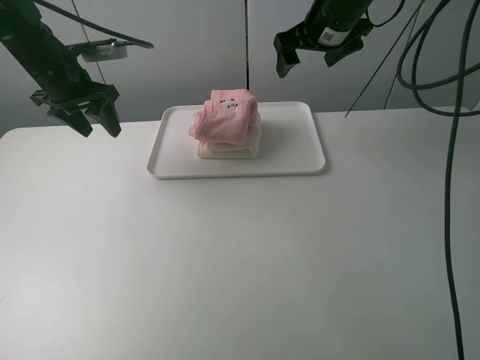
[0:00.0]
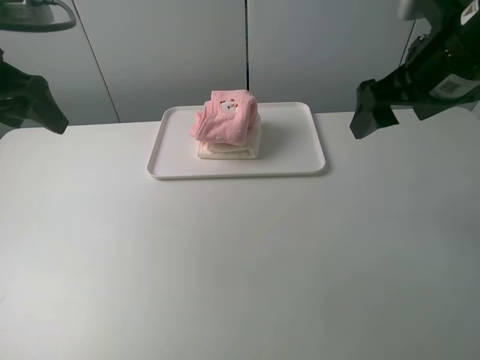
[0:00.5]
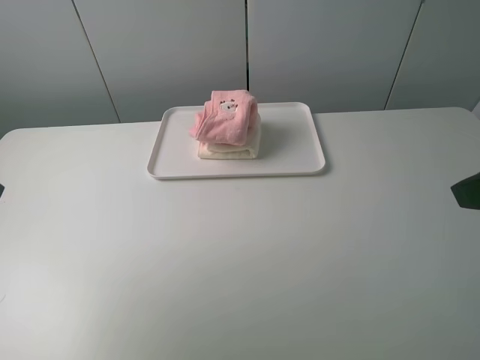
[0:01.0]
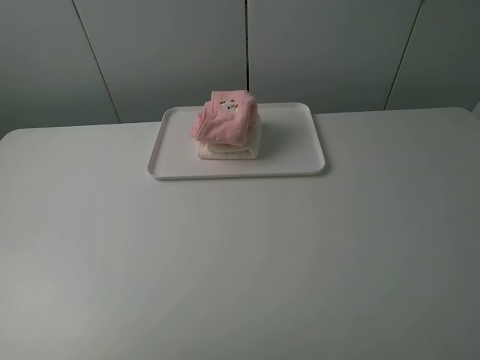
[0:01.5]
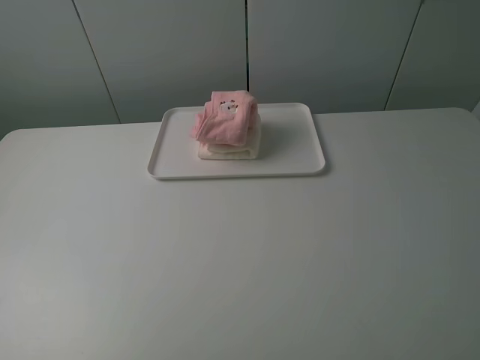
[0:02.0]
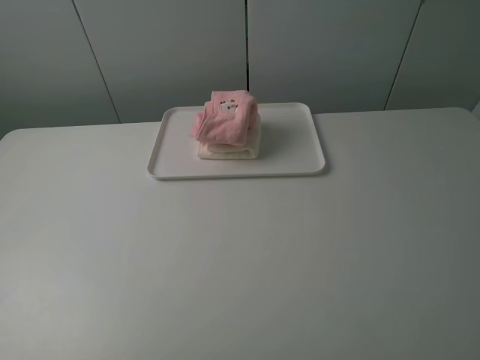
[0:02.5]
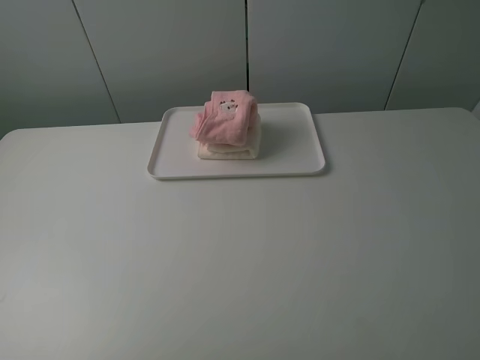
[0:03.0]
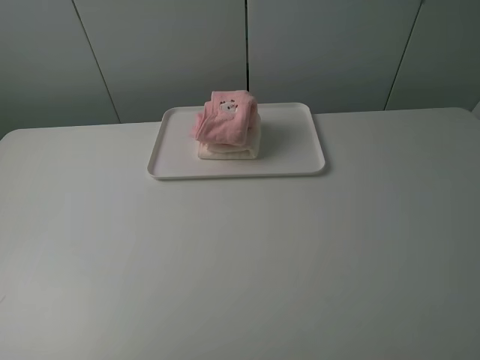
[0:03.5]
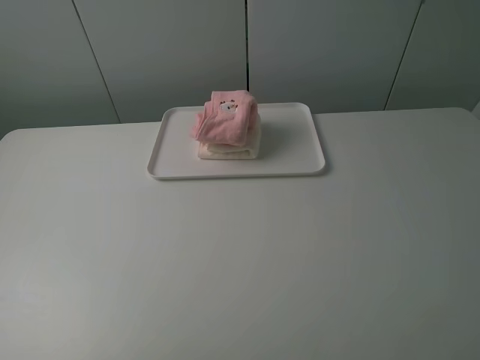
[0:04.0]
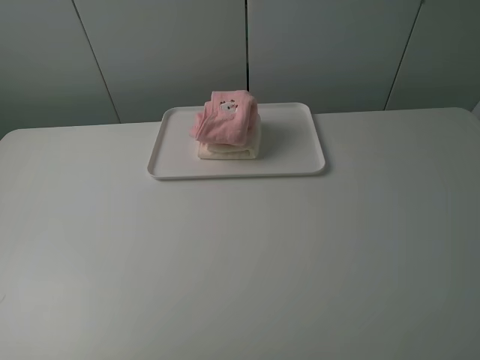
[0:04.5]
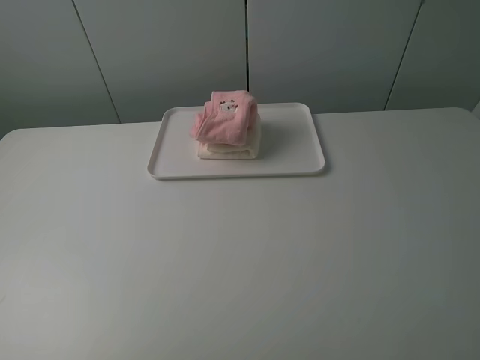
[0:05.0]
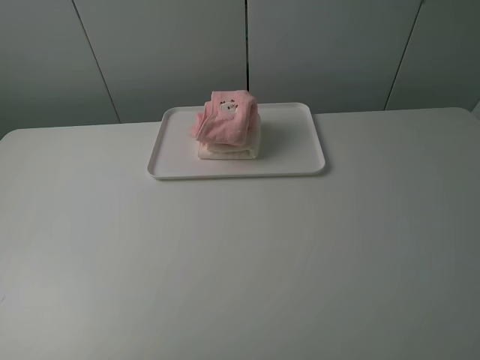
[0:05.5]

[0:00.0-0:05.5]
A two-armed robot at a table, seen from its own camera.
Task of the whole recording: fold one of the towels by two grippers and place it on the tray,then fold another towel by two grippers and place it on the folded towel.
0:00.0 to 0:02.0: The grippers both shift backward by some 40 cm.
